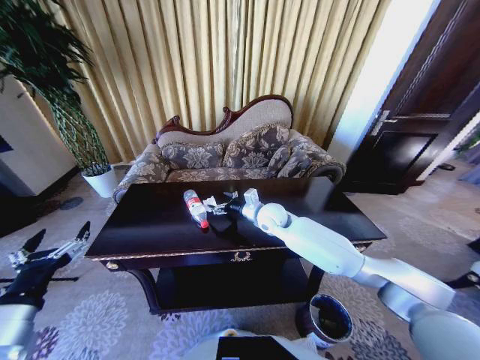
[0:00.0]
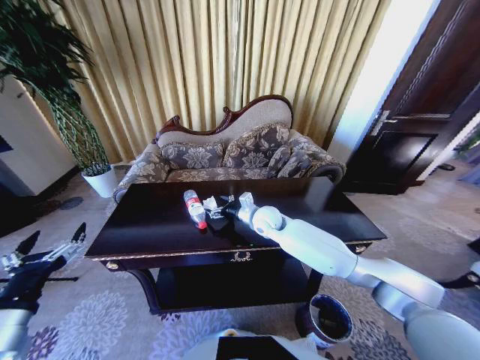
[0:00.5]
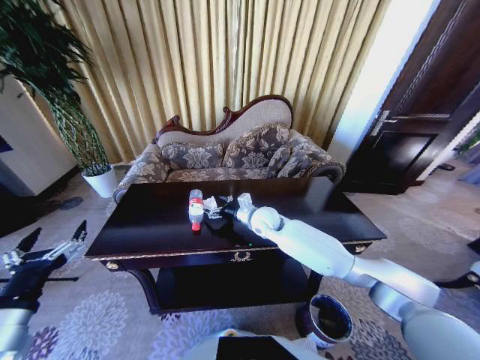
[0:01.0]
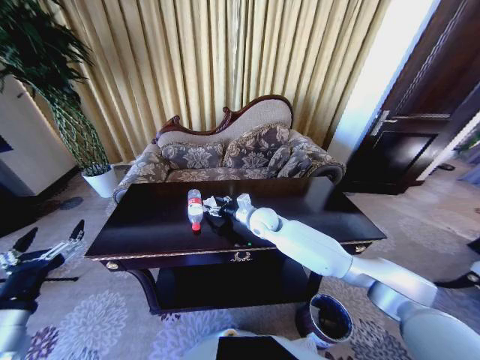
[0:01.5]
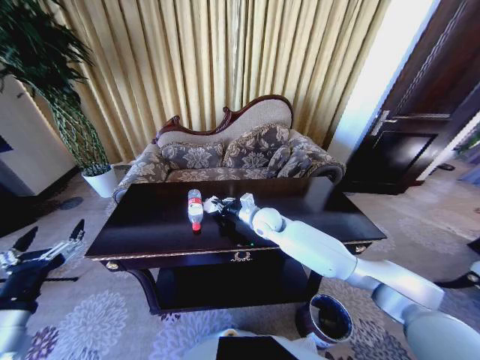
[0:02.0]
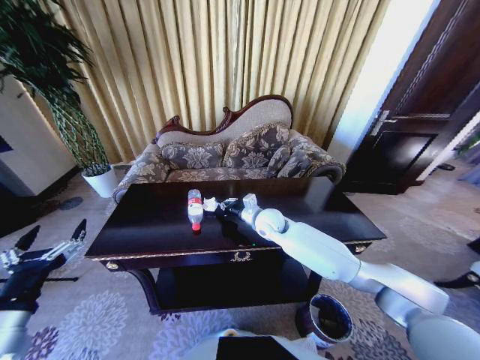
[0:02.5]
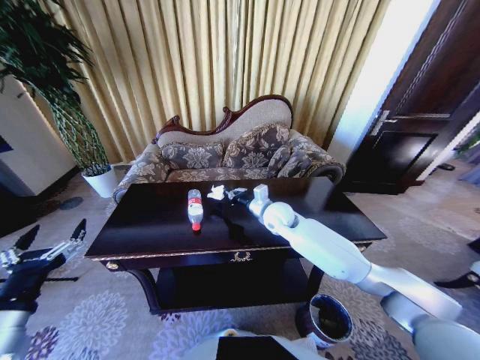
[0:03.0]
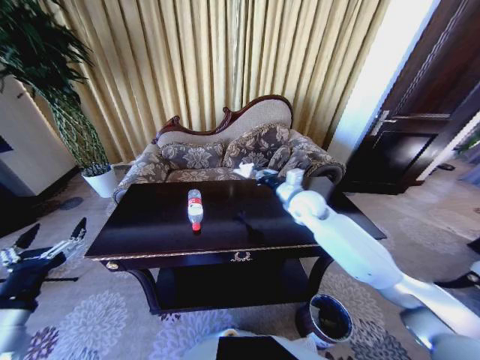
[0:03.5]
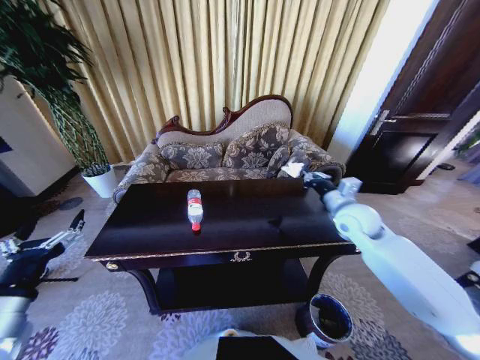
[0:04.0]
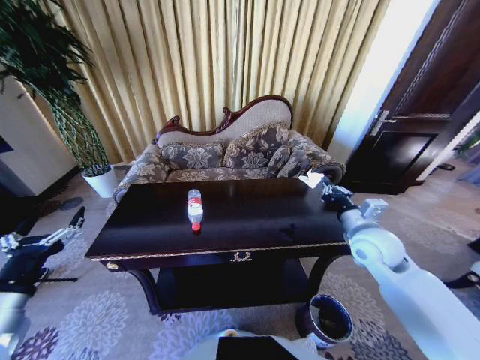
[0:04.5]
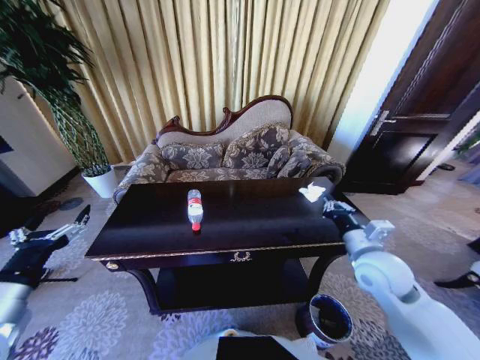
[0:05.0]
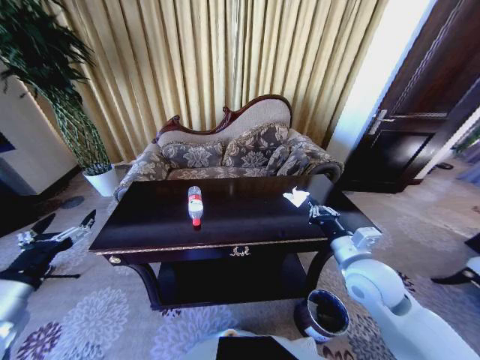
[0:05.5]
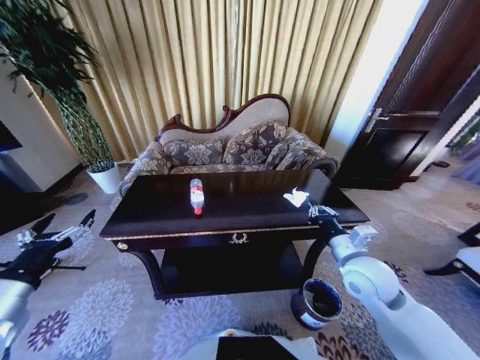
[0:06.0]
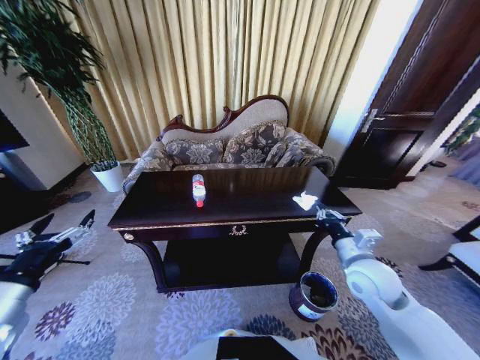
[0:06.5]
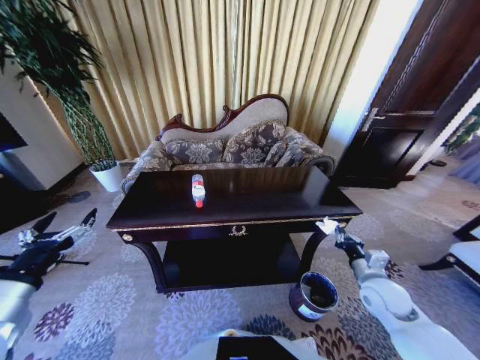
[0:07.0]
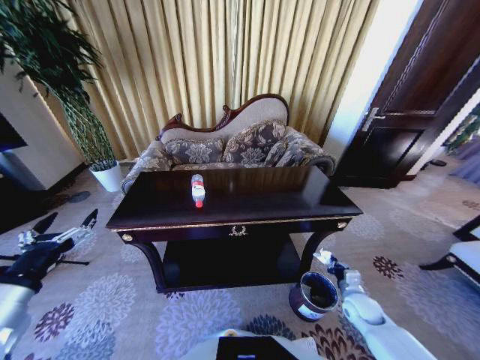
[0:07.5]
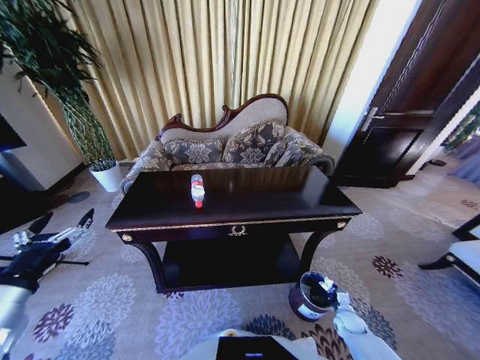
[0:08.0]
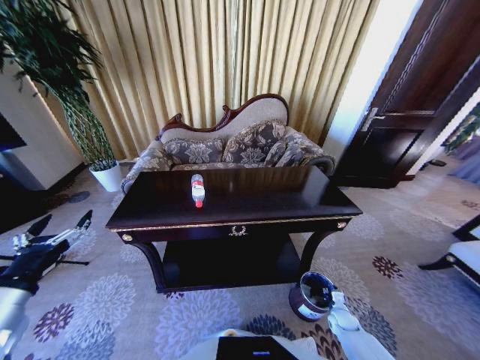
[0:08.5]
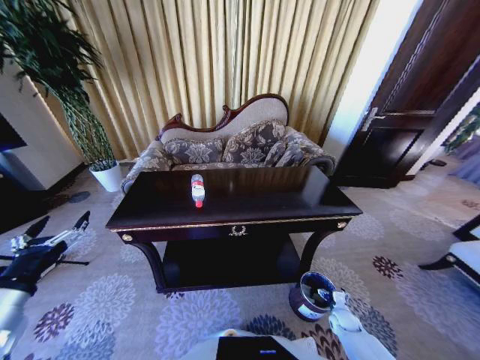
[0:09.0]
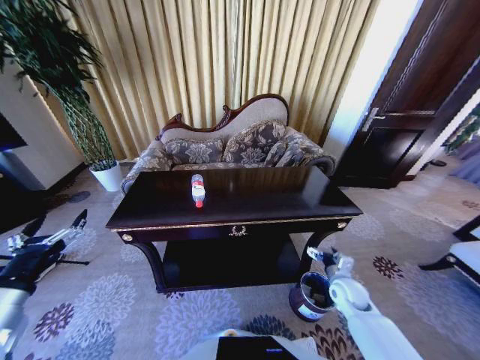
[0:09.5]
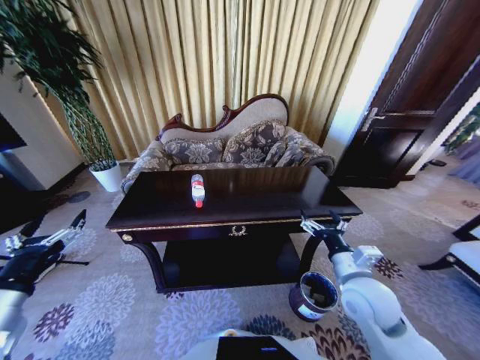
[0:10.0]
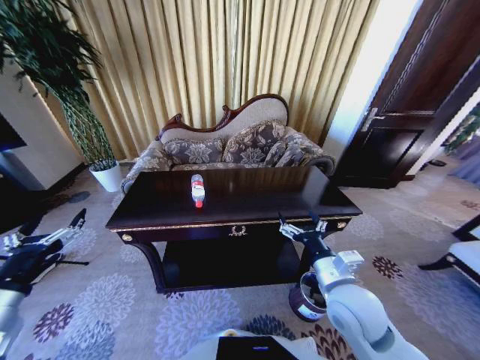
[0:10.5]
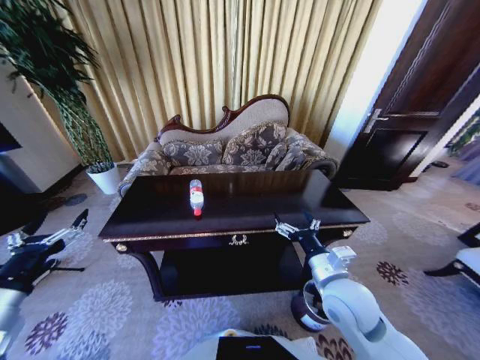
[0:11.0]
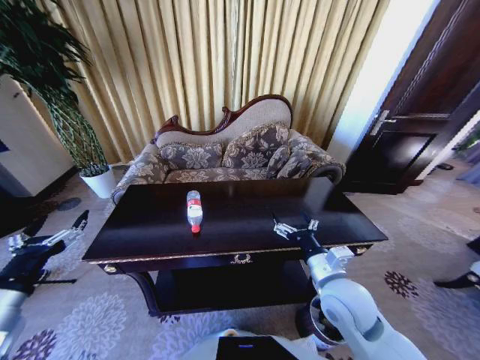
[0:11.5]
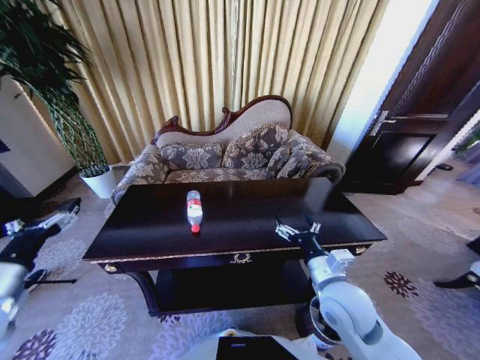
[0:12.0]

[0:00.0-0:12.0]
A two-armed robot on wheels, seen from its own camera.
Task of the whole recording: Move to the front of the table and place the trash on the table into the trash bin.
0:00.0 to 0:02.0: The right gripper closes.
0:02.0 to 0:04.0: The right gripper is displaced to the right by approximately 20 cm.
0:04.0 to 0:06.0: The right gripper heads backward, covering approximately 15 cm.
0:06.0 to 0:08.0: The right gripper heads downward, covering about 35 cm.
0:08.0 to 0:10.0: The right gripper heads upward and to the left, covering roughly 40 cm, and opens its fingers.
0:10.0 to 0:12.0: The right gripper heads to the left, covering some 5 cm.

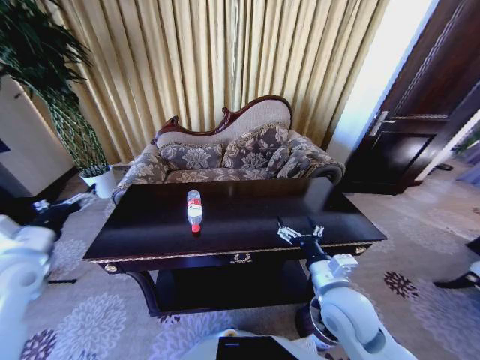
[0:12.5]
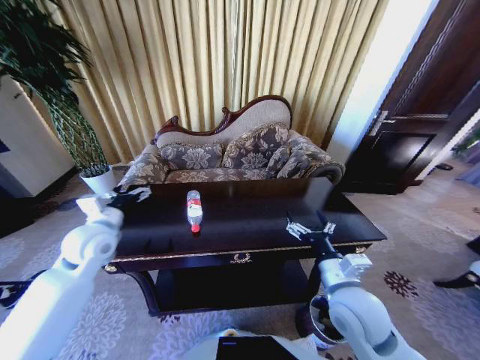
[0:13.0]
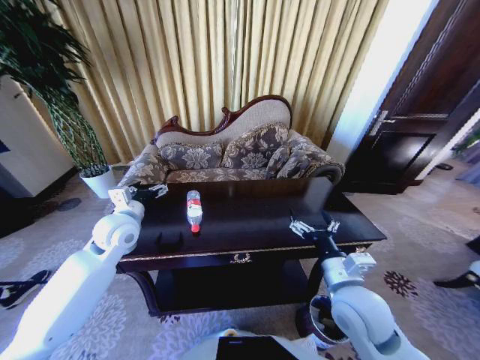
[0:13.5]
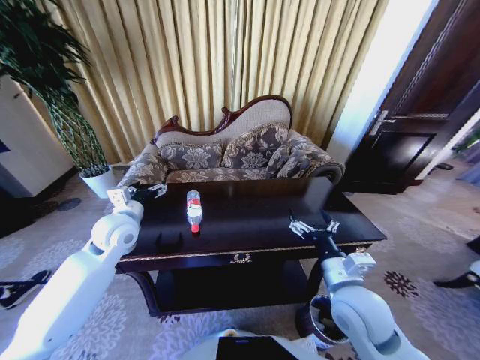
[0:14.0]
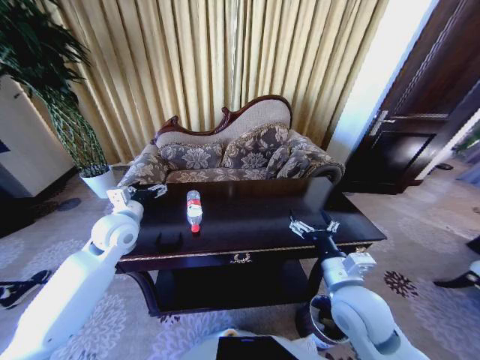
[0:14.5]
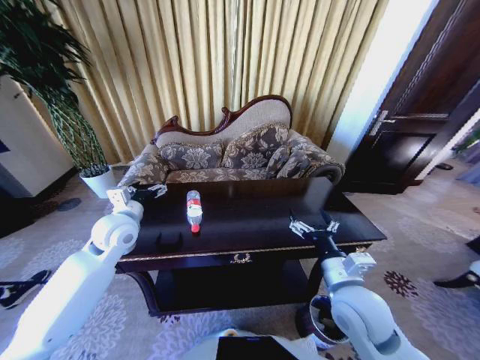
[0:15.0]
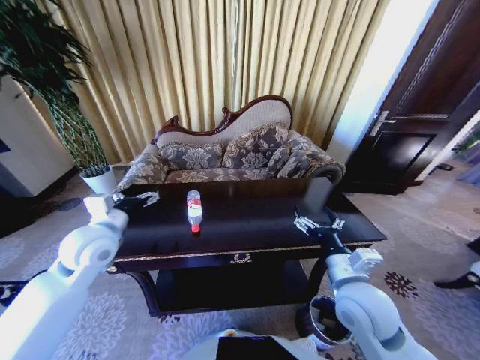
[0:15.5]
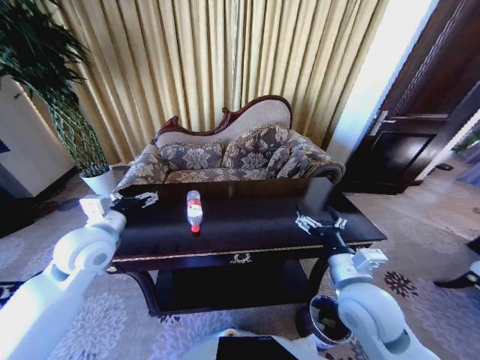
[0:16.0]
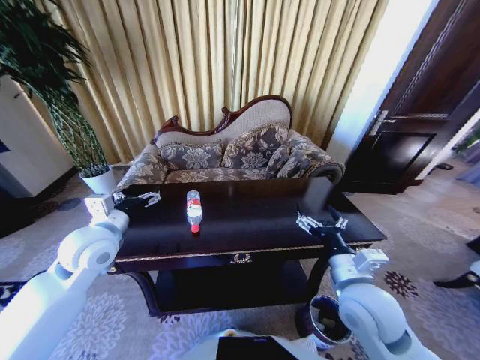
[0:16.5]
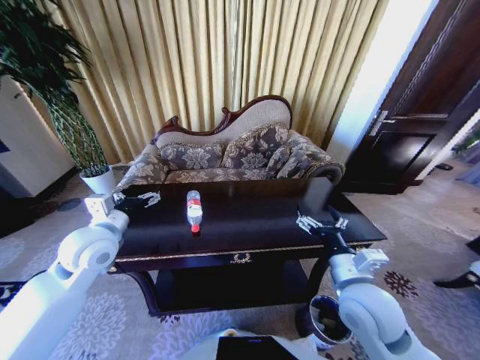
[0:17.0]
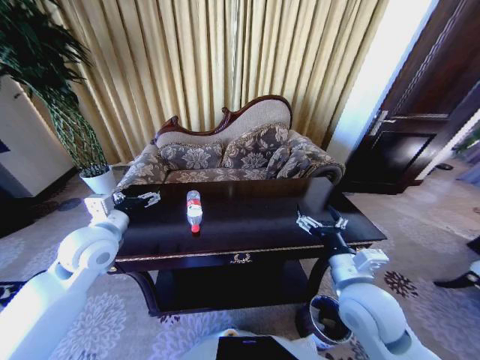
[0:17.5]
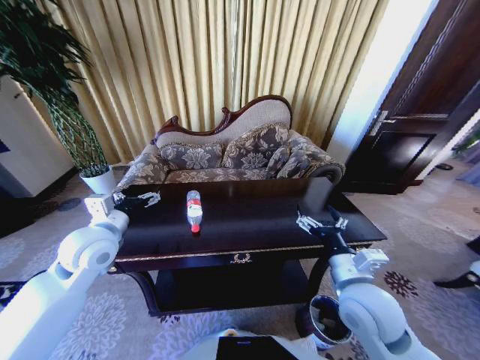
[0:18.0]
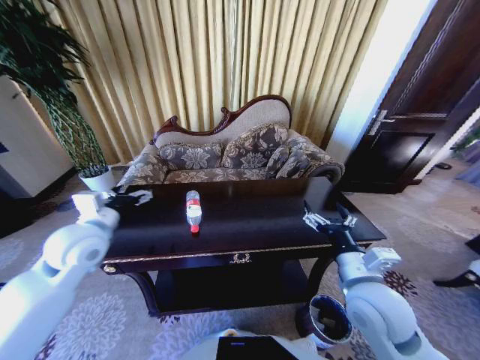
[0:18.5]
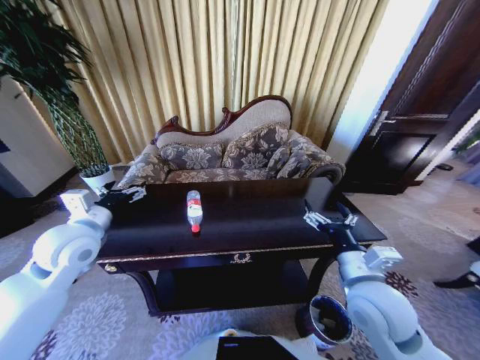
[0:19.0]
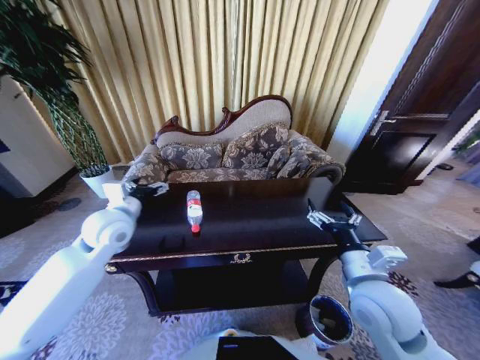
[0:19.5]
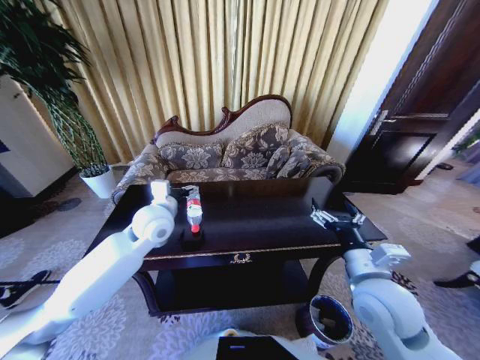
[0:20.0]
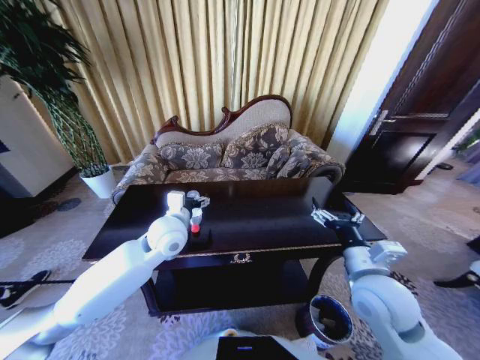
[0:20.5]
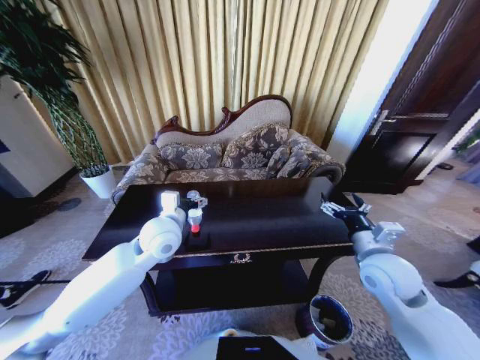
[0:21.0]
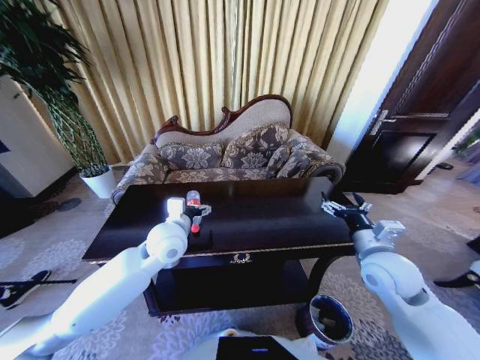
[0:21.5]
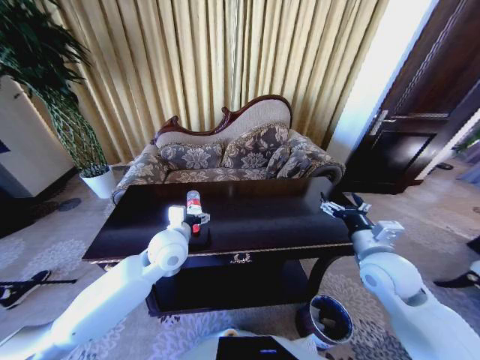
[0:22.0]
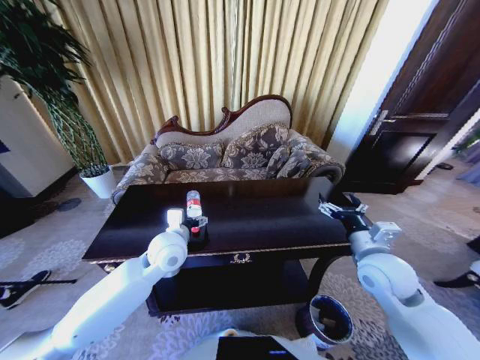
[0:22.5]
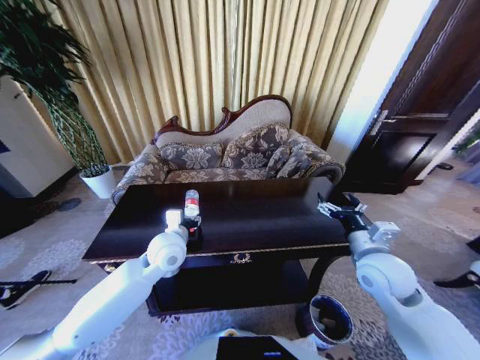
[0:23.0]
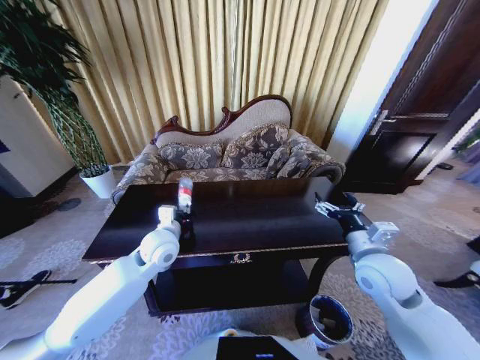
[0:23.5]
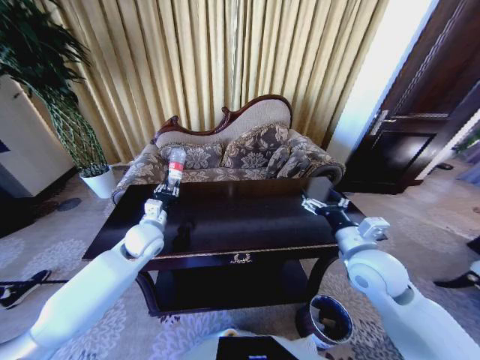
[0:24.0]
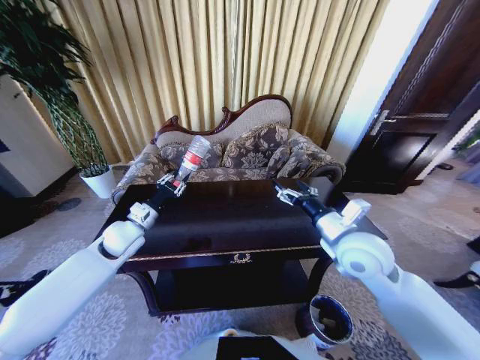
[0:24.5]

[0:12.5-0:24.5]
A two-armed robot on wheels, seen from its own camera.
Task of the whole recording: Move to the front of the table and place the trash on the table into the trash bin.
0:12.5 to 0:14.5: The left gripper moves to the right and forward, about 20 cm.
0:14.5 to 0:16.5: The left gripper travels backward by roughly 5 cm.
0:16.5 to 0:18.5: There are only small adjustments of the grippers.
0:18.5 to 0:20.5: The left gripper shifts approximately 15 cm to the right.
0:20.5 to 0:22.5: The right gripper goes about 5 cm to the right and forward.
0:22.5 to 0:24.5: The right gripper moves to the left and upward, roughly 10 cm; the left gripper shifts approximately 15 cm to the left, and closes.

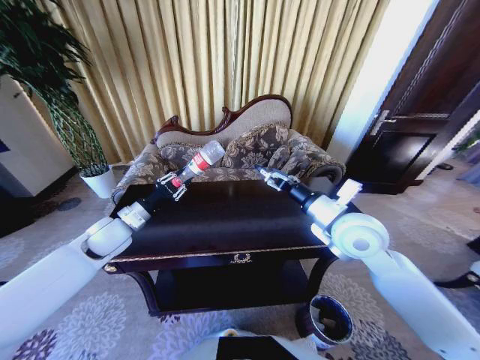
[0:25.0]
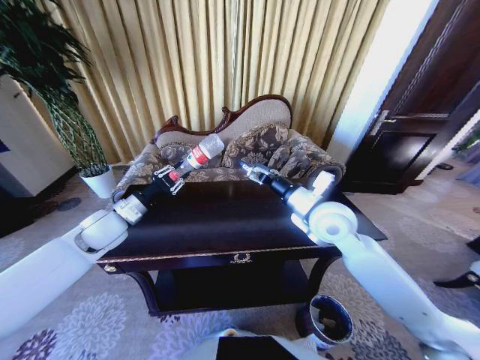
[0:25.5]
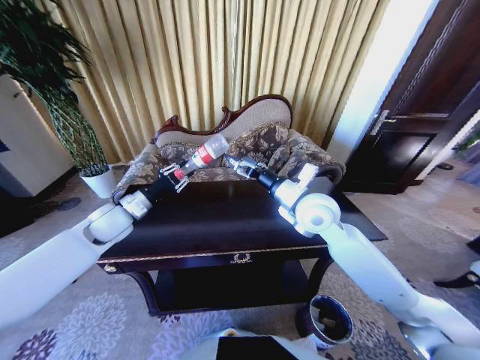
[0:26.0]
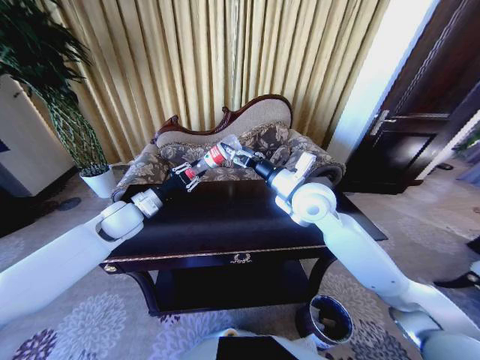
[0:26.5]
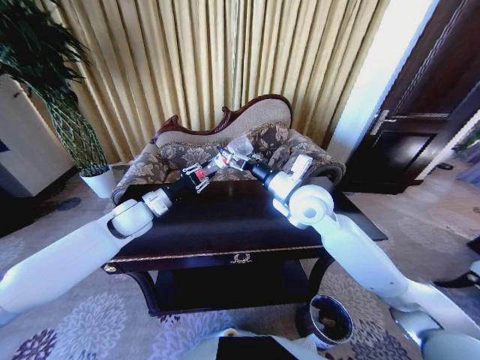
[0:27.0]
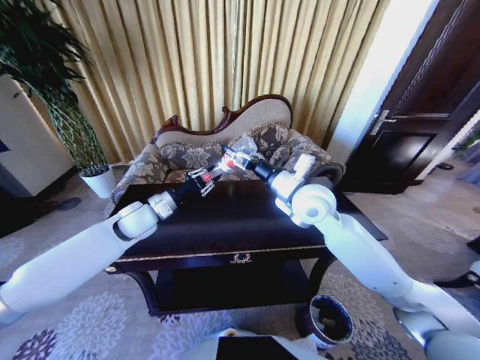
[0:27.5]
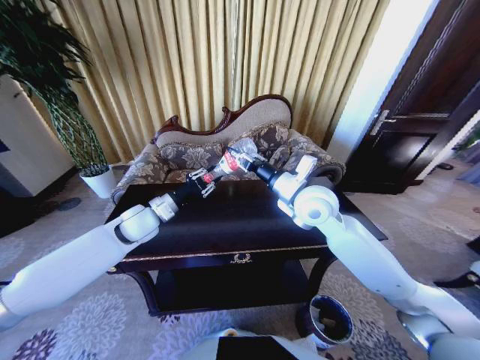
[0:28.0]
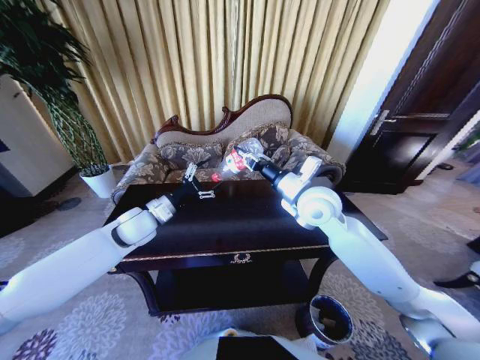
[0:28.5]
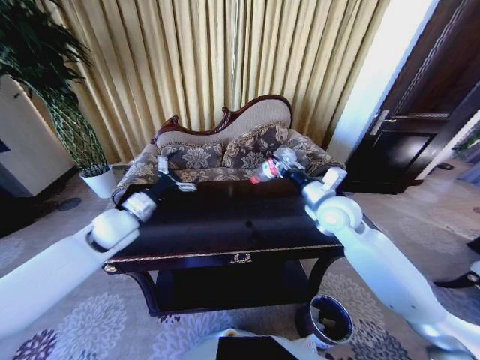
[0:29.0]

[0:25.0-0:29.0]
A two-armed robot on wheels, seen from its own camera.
Task of the whole recording: Move to the front of the table and place the trash on the table into the trash bin.
0:25.0 to 0:27.0: The right gripper heads to the left and forward, covering some 10 cm. The left gripper shifts about 5 cm to the right.
0:27.0 to 0:29.0: The left gripper opens up; the right gripper heads to the right, covering some 10 cm, and closes its fingers.
